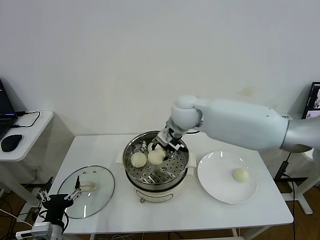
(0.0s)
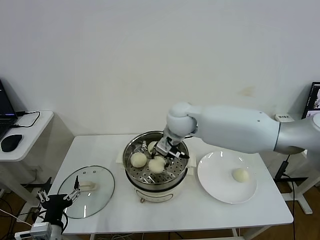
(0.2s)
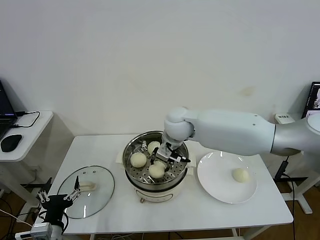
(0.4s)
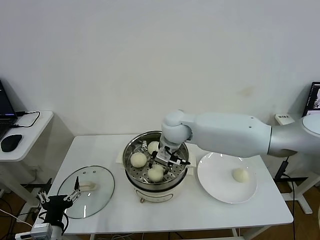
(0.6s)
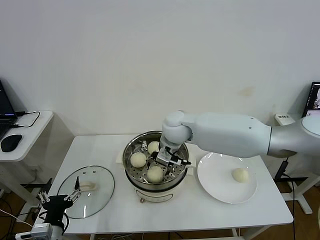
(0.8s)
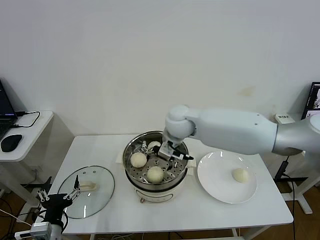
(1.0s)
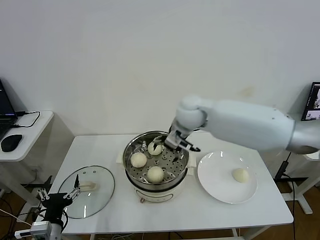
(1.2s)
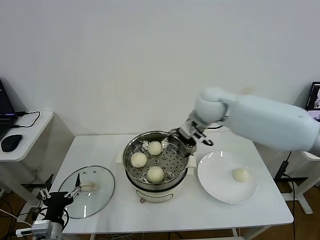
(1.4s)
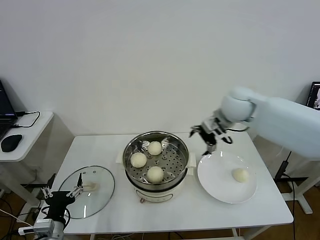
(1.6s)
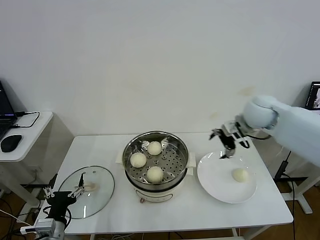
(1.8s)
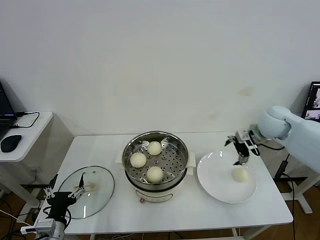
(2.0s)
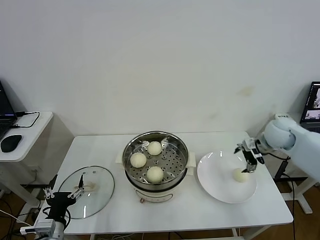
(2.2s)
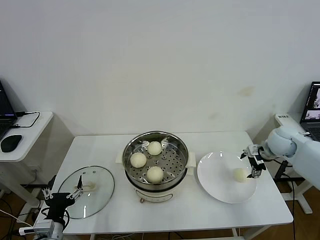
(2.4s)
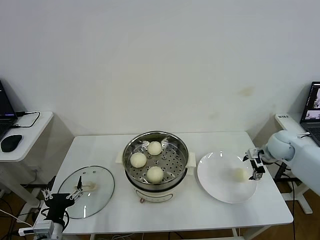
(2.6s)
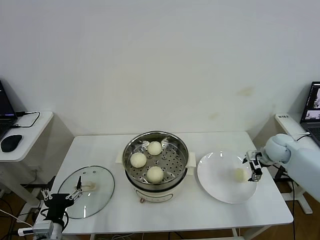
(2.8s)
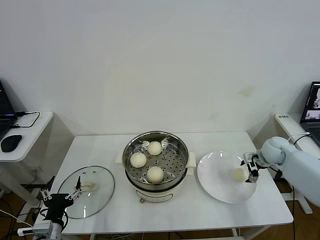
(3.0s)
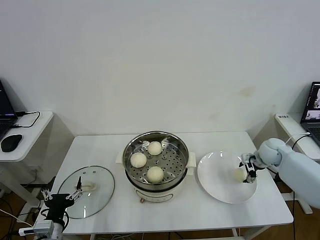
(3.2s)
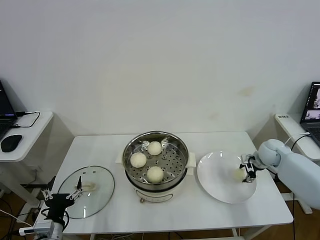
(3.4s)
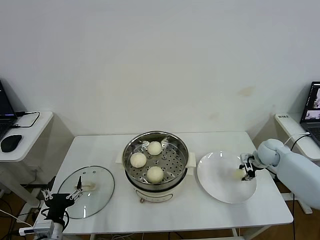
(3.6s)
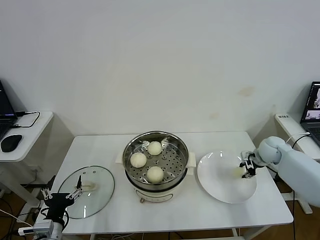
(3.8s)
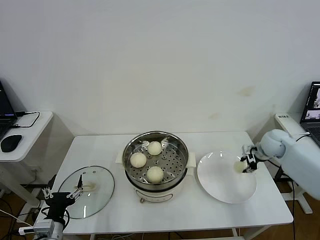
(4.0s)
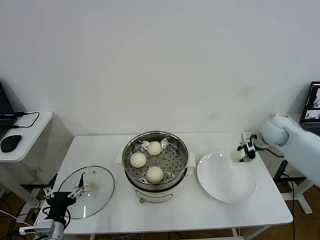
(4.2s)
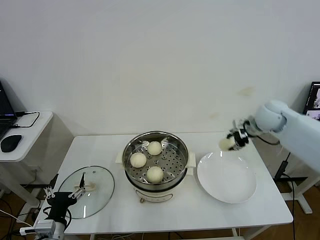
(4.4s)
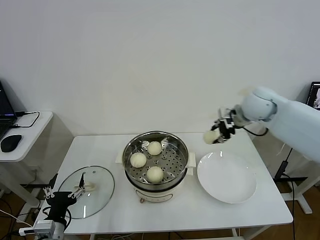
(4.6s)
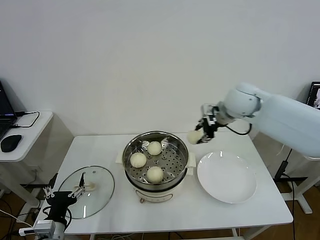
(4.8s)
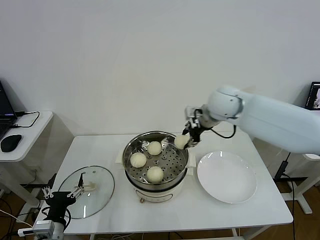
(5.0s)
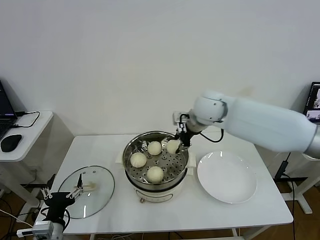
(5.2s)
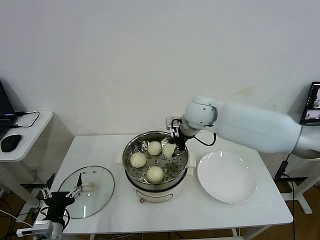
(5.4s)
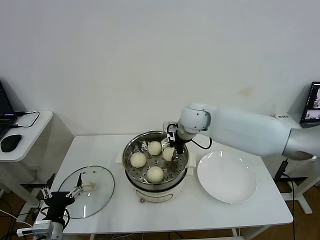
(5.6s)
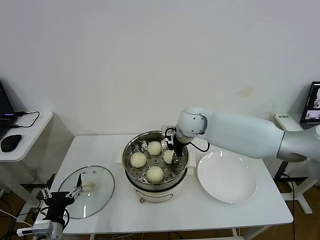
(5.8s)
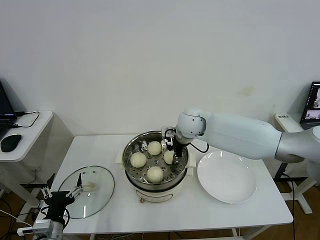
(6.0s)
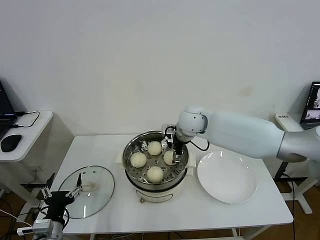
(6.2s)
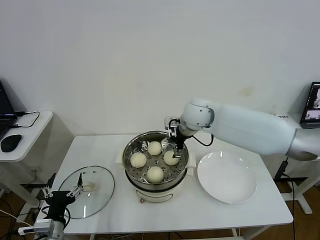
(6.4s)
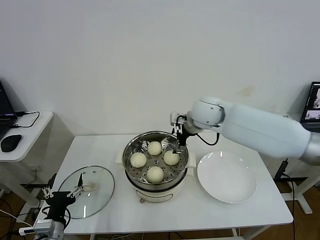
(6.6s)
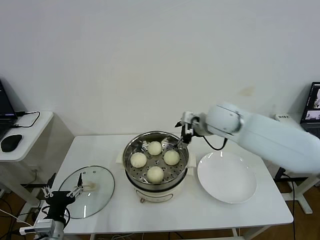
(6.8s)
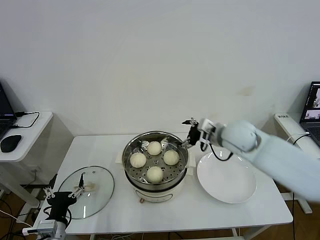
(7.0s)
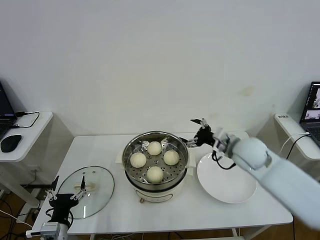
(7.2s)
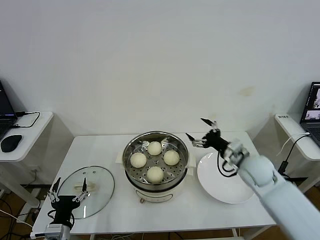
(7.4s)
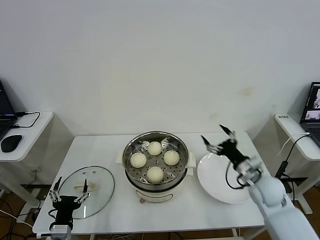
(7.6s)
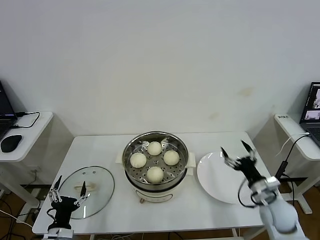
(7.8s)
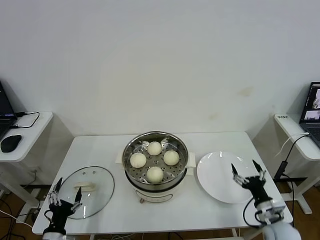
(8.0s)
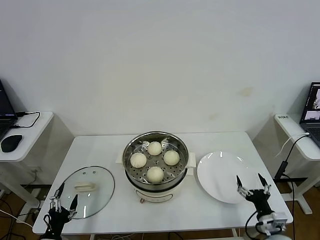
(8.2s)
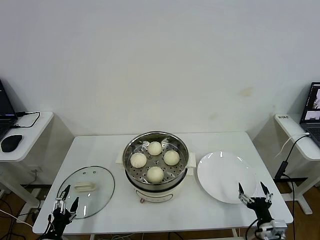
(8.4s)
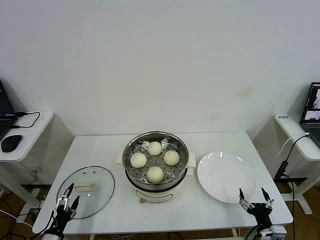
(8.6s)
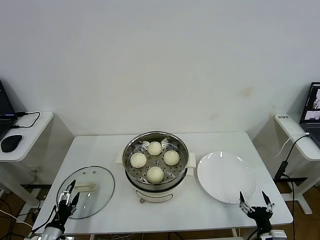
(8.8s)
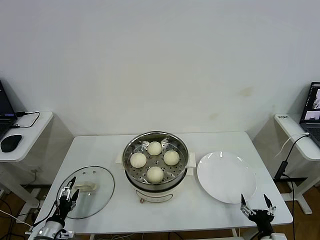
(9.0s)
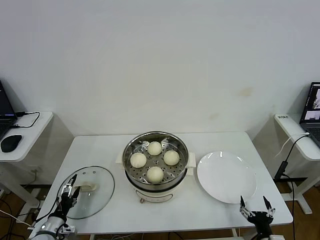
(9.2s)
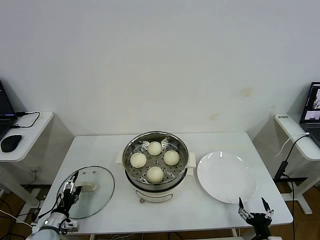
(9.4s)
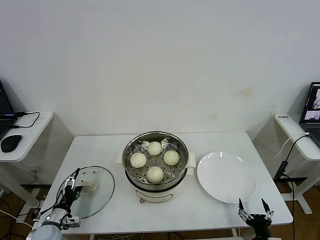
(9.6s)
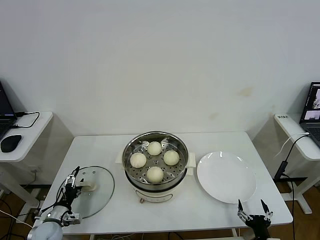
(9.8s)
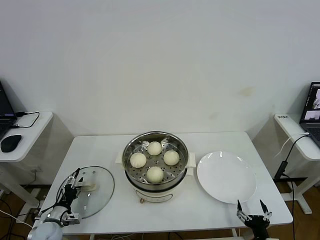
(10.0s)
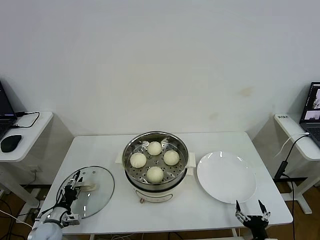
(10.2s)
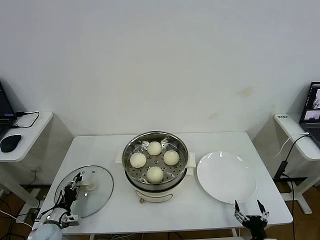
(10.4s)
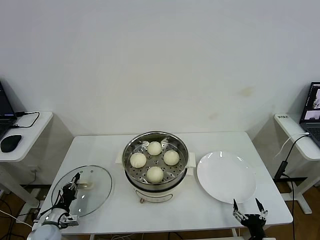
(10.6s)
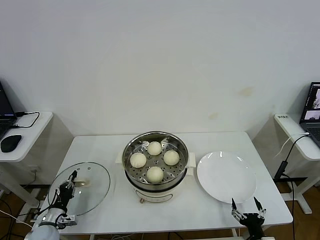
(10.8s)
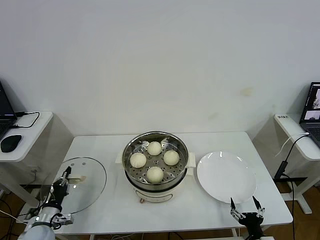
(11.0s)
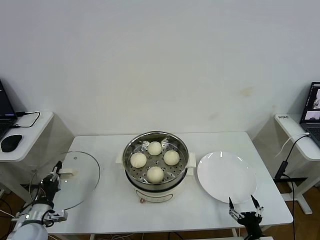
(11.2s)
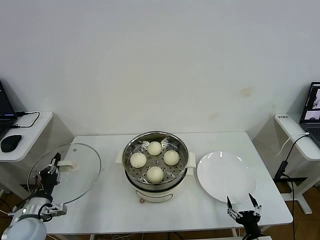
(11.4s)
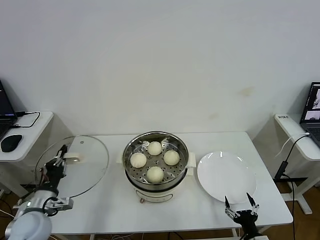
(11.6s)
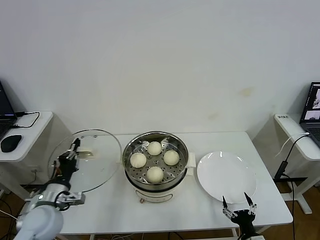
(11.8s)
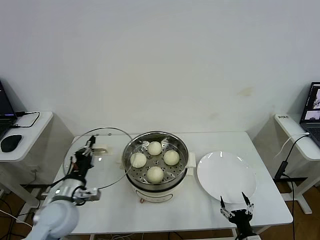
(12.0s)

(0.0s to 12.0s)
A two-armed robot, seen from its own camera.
Step, 1.0s - 3.6s: Grasp the baozi in the plate with right gripper.
Step, 3.8s - 6.0s: Place the baozi on the steamer with right gripper.
Step, 6.2s - 10.6s: Grasp the pot lid with left gripper.
0.0s - 1.6s: The right gripper travels to the right by roughly 20 cm, and opens.
1.6s - 3.0s: The right gripper is displaced downward and to the right by about 25 cm.
3.0s - 4.4s: The right gripper is displaced upward and to the left by some 20 cm, and closes up.
4.4s - 6.0s: The right gripper goes approximately 25 cm to the left, and opens its fingers.
6.0s - 7.6s: The right gripper goes approximately 30 cm to the right, backward and downward, and opens.
7.6s - 9.0s: The right gripper goes roughly 25 cm backward and downward. Meanwhile the left gripper travels to the left and downward by approximately 15 cm.
9.0s - 10.4s: The left gripper heads forward, covering roughly 5 cm, and closes its fingers.
10.4s - 12.0s: The left gripper is displaced upward and to the right by some 25 cm.

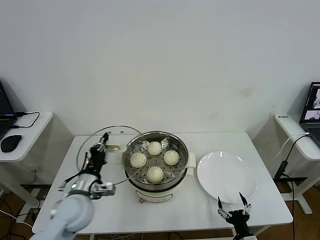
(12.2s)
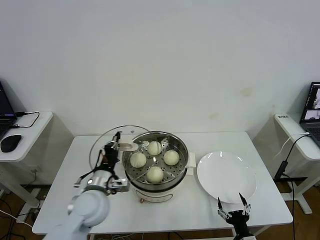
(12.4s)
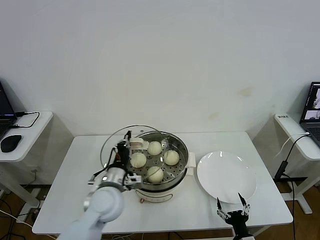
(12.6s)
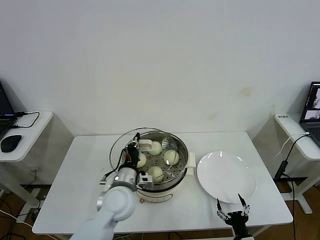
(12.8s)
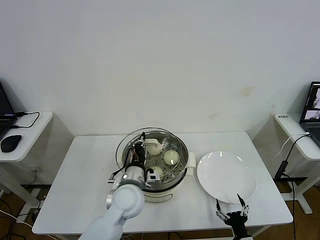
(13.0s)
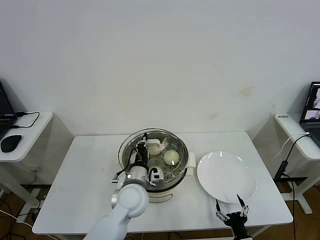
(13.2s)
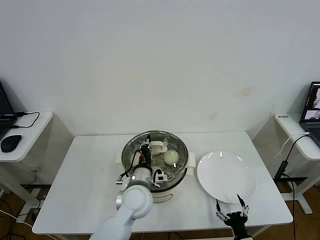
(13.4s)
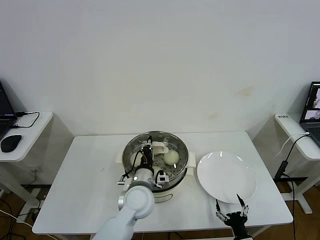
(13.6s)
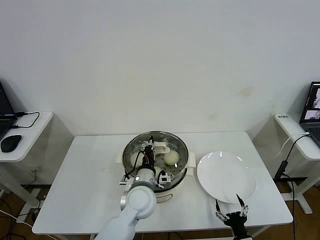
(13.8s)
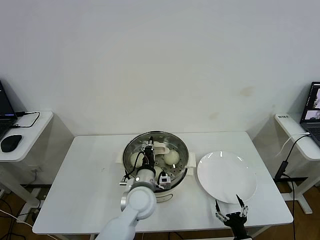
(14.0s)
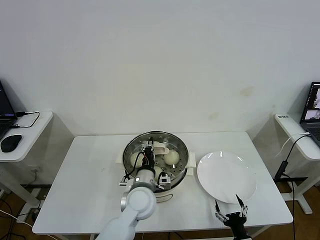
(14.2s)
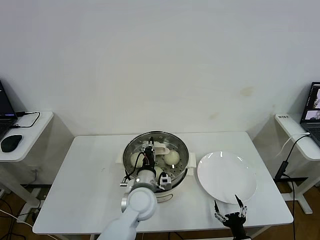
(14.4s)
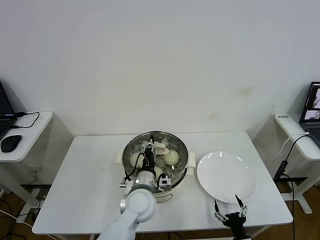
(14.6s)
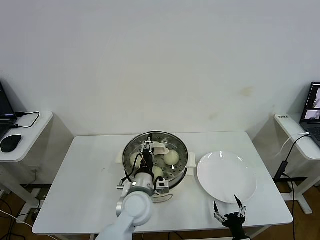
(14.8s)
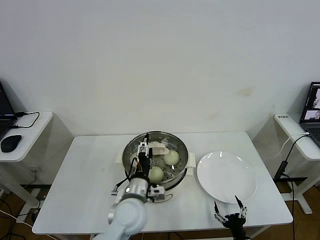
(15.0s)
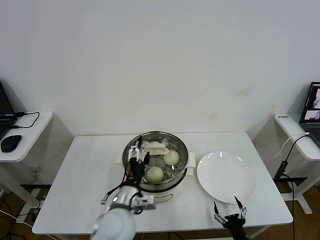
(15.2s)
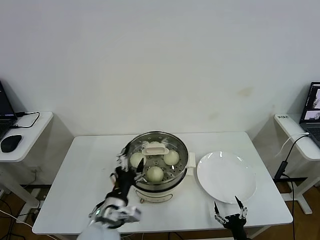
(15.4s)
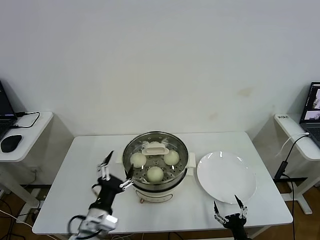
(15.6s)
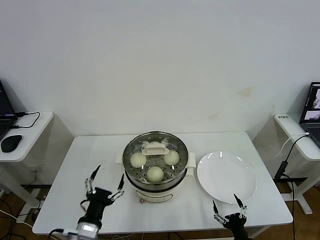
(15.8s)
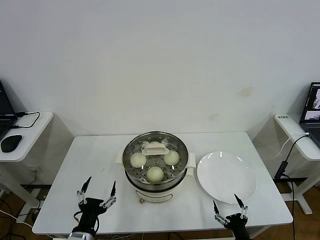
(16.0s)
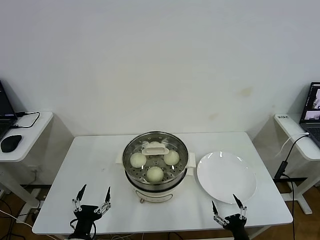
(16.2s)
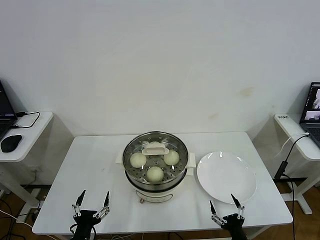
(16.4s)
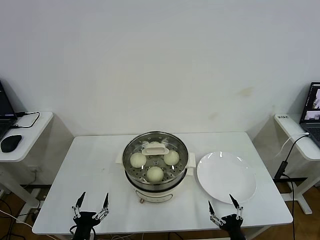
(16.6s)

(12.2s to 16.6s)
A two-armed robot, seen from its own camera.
Step, 12.2s - 14.6s: Place the pot lid on the steamer with left gripper.
12.2s - 13.6s: The left gripper is displaced to the right by some 20 cm.
13.6s - 15.2s: The left gripper is displaced backward by approximately 5 cm, and opens.
15.2s - 16.6s: The left gripper shifts about 25 cm to the left, backward and downward.

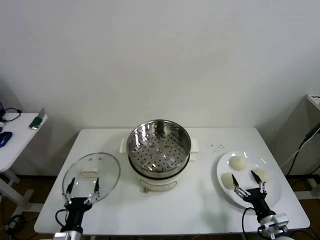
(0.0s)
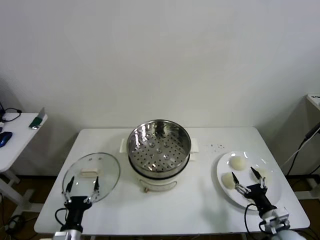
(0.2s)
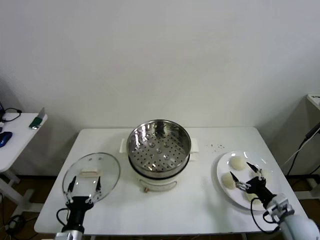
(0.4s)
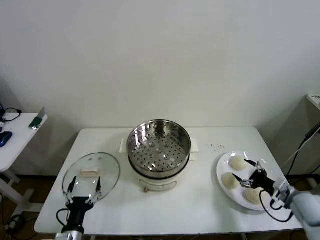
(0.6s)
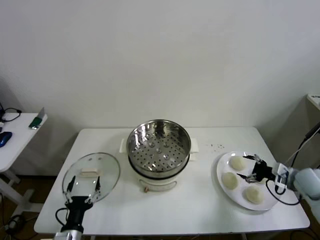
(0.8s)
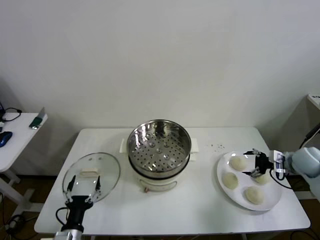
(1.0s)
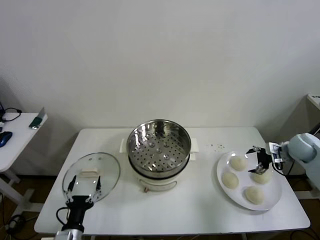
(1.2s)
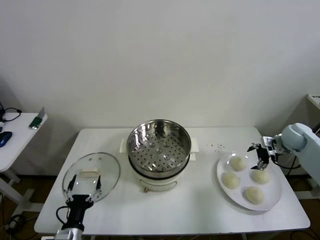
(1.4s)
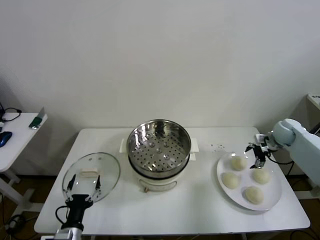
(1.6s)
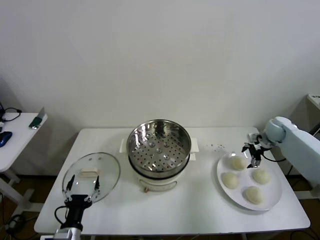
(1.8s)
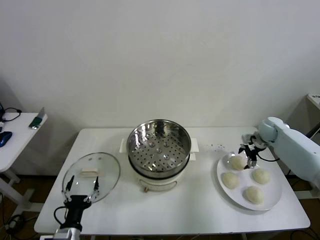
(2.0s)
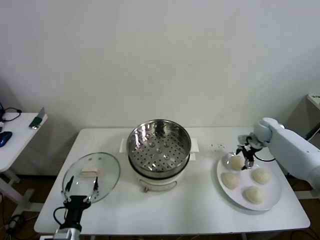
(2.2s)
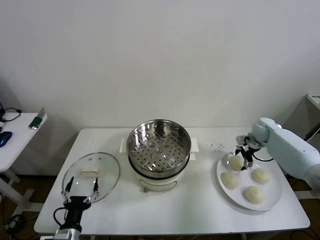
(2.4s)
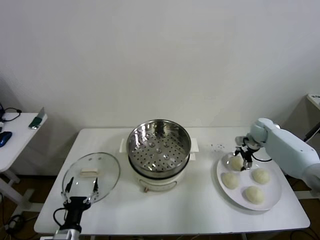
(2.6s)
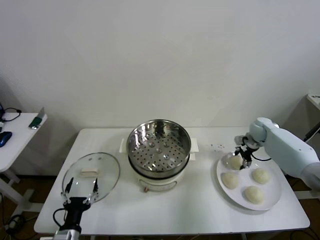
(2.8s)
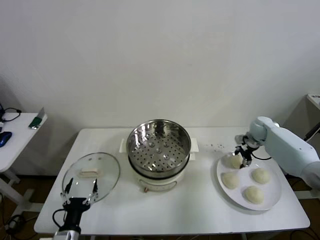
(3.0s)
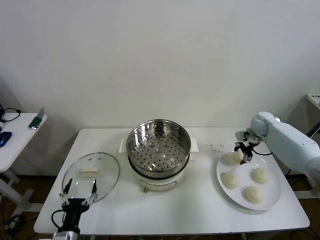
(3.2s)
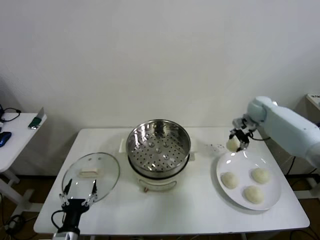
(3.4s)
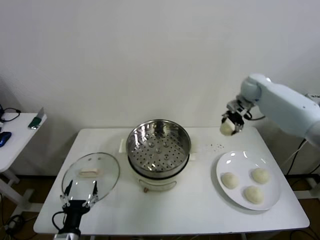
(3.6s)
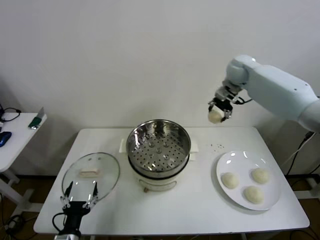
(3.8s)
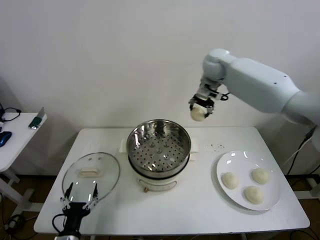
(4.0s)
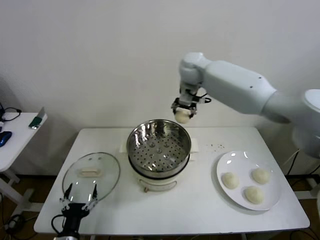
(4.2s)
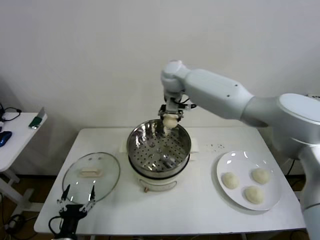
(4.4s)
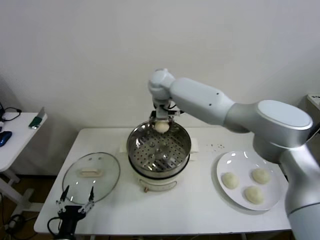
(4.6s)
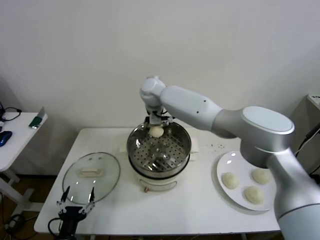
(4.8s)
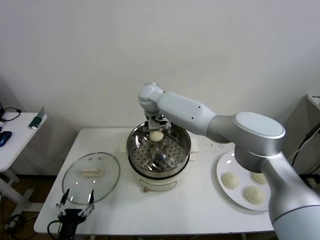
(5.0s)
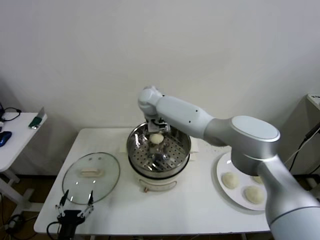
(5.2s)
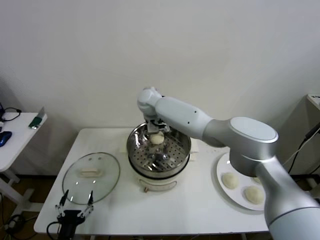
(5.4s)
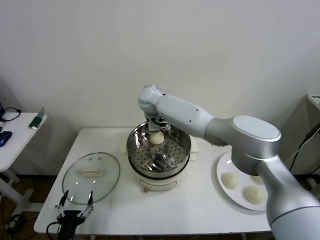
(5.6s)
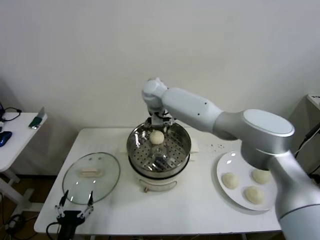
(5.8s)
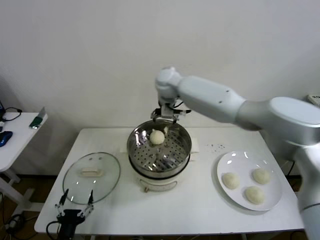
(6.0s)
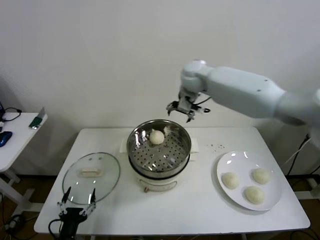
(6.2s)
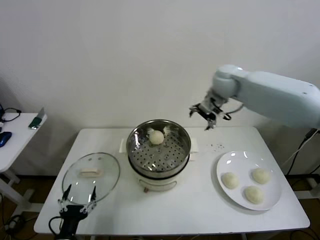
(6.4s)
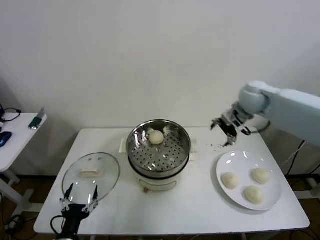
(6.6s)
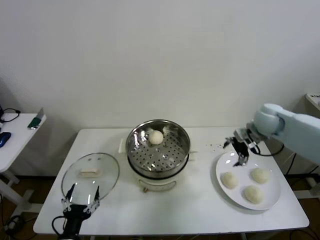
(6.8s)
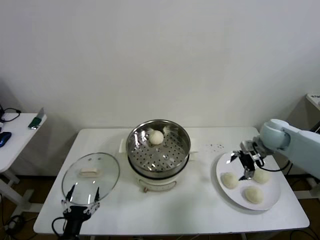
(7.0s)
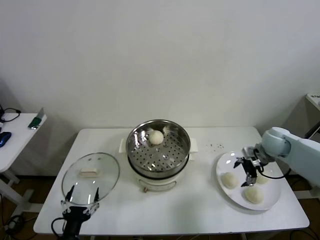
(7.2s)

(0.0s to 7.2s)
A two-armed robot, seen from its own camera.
Step, 0.0s - 2.8s: Grasp the baozi in the plate with right gripper.
Step, 3.0s - 5.8s: Place the baozi on the steamer with right gripper.
1.4s - 2.8s: The right gripper heads to the left and forward, covering about 10 cm, and closes.
2.8s - 4.4s: The right gripper is displaced to the left and upward by some 50 cm.
4.4s - 5.8s: The right gripper opens up.
5.8s - 7.2s: The right gripper shifts about 40 cm to the right.
